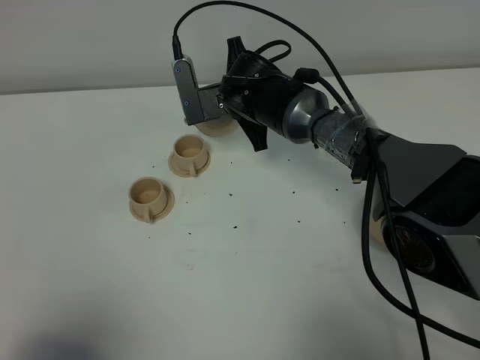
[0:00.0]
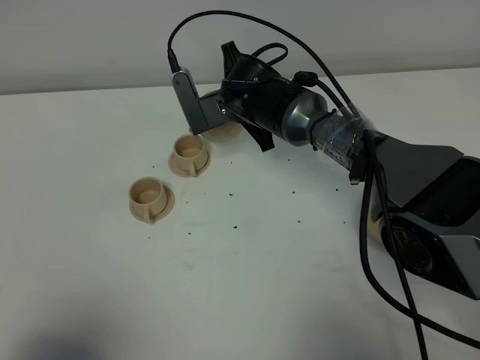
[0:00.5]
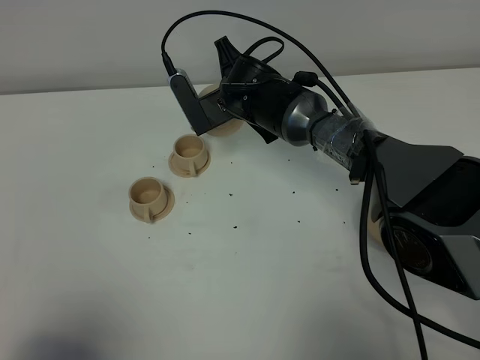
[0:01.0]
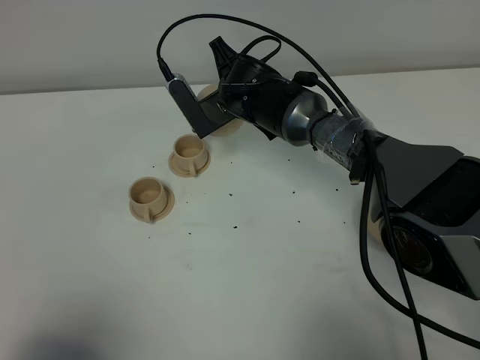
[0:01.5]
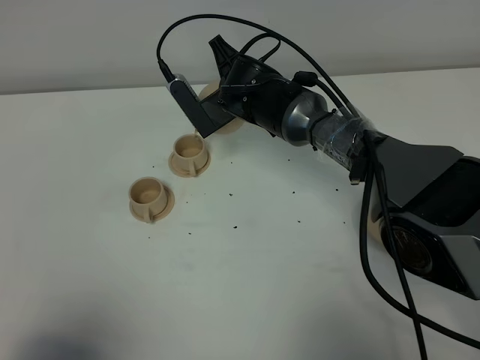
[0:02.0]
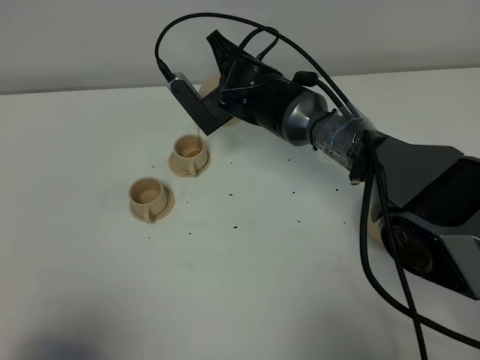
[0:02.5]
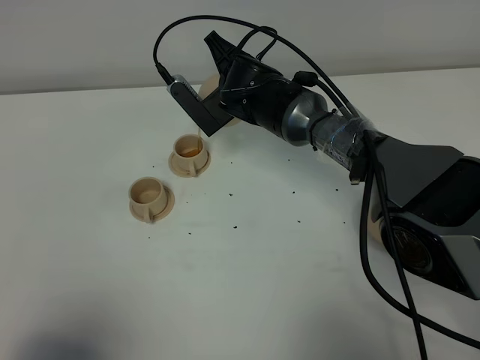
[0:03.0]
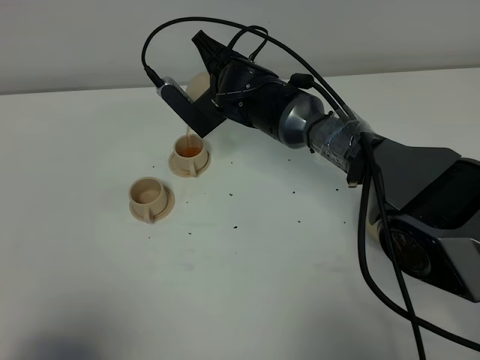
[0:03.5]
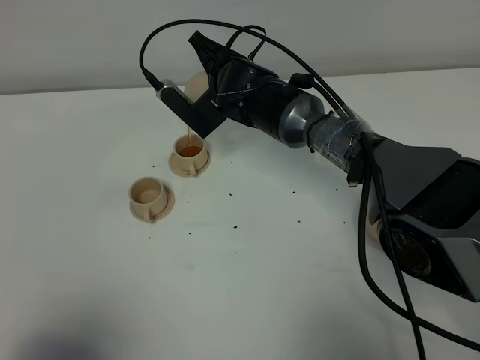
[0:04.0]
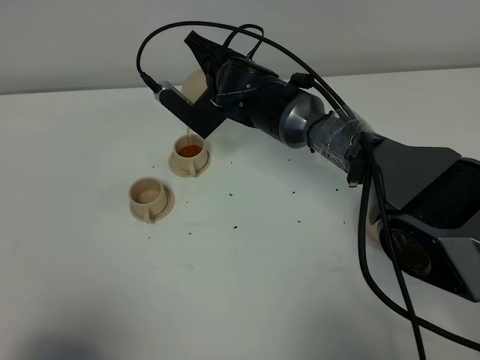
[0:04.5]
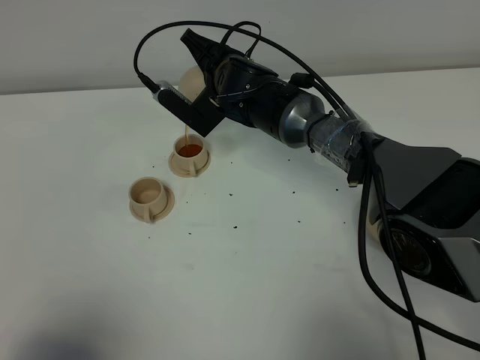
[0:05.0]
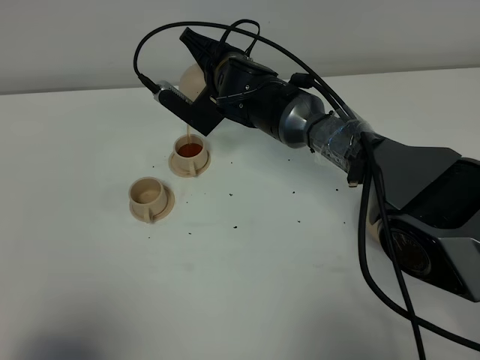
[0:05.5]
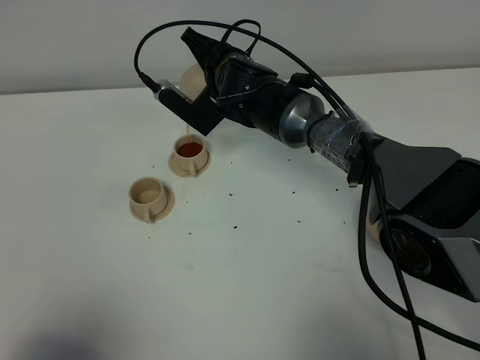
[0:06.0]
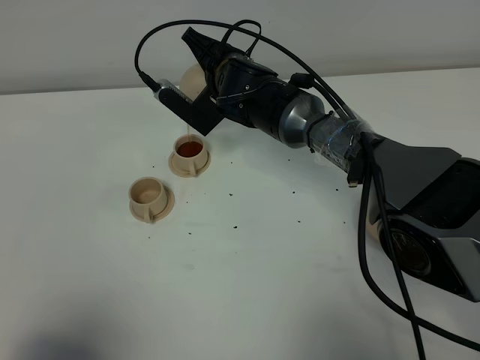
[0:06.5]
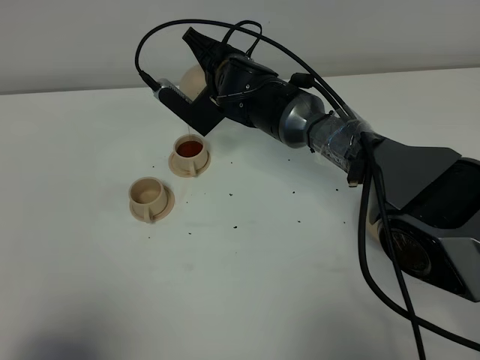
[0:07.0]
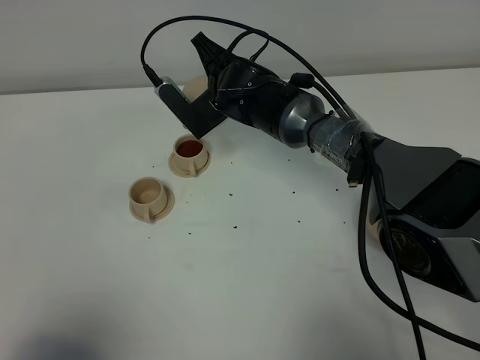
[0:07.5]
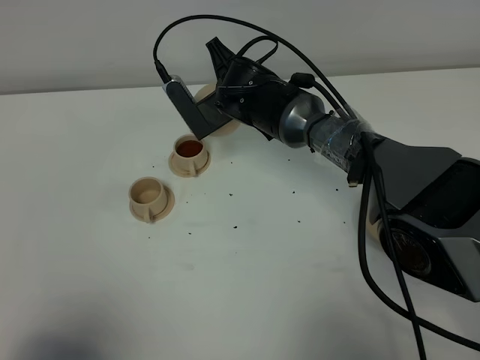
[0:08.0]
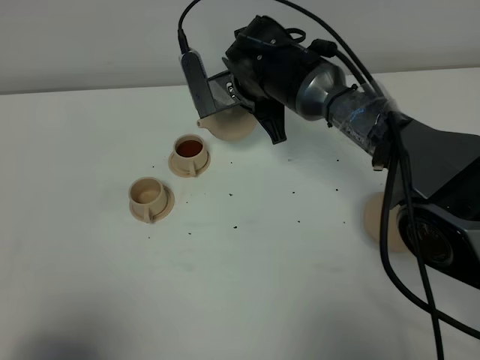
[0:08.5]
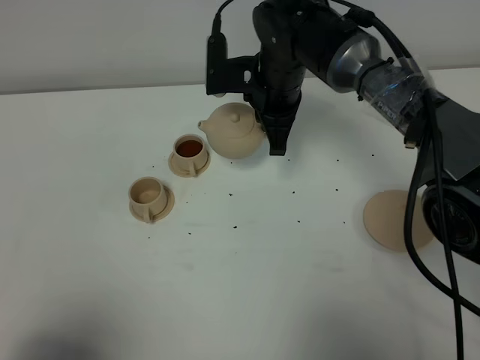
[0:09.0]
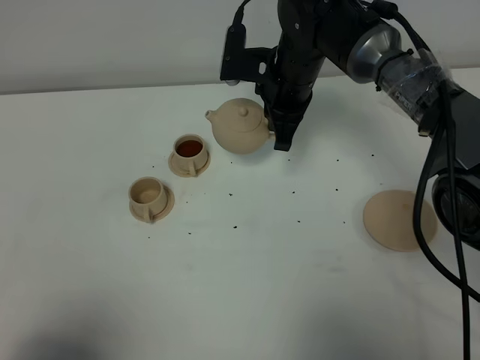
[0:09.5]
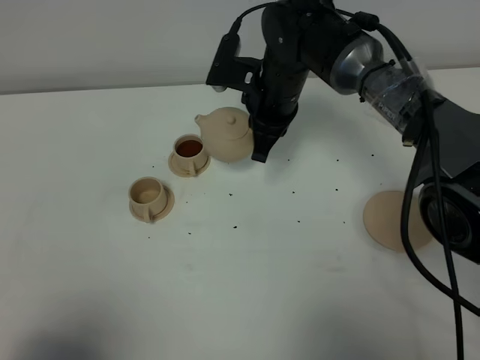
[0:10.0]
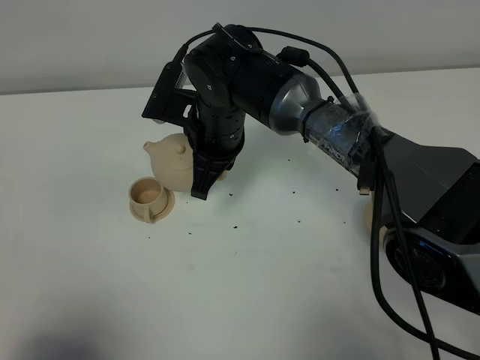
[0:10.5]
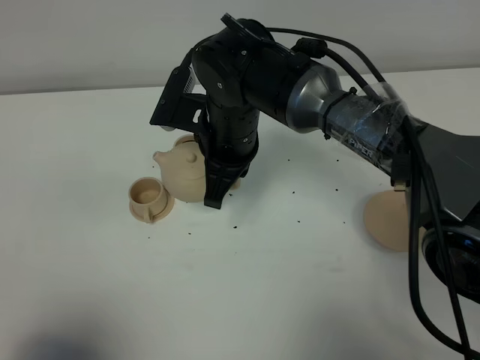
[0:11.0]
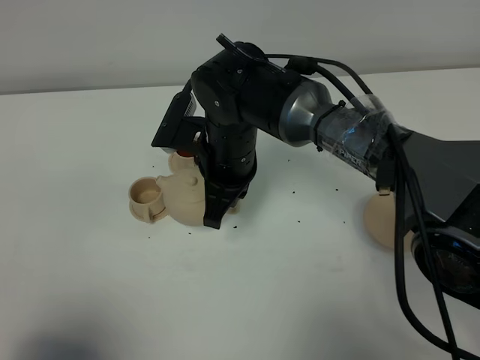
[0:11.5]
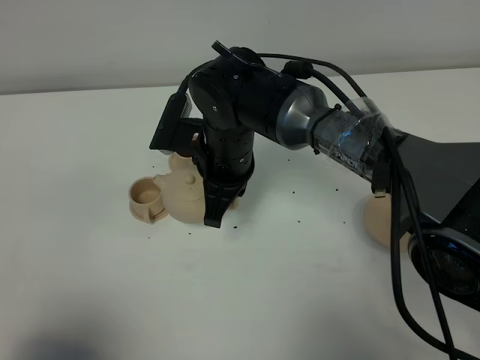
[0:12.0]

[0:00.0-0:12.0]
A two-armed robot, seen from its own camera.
Task of the whole recording: grasp the brown teapot and pour the tea into the two brown teacups one by one, put the brown teapot back in its original place.
Step, 0:00.0 to 0:08.0: Pour tea into the teacup with the right gripper.
0:02.0 to 0:04.0: There are only small adjustments of the grippers.
0:04.0 to 0:06.0: There are only small adjustments of the grippers.
0:08.0 to 0:10.0: The right gripper ends up roughly 5 cm from where it was.
0:10.0 to 0:12.0: The right gripper is displaced backward by some 10 cm.

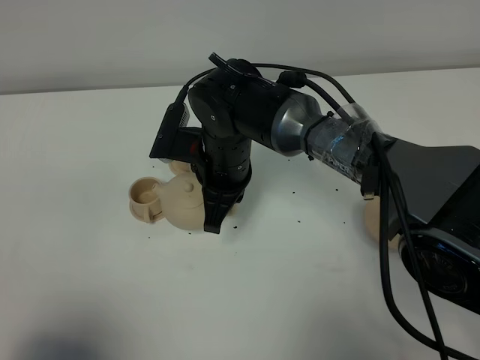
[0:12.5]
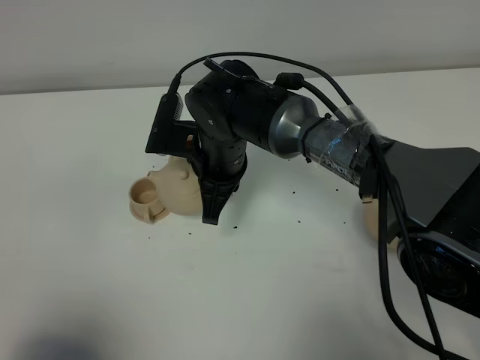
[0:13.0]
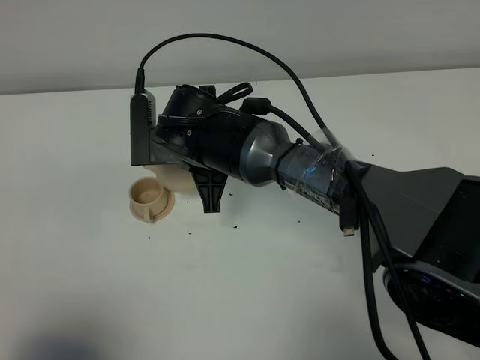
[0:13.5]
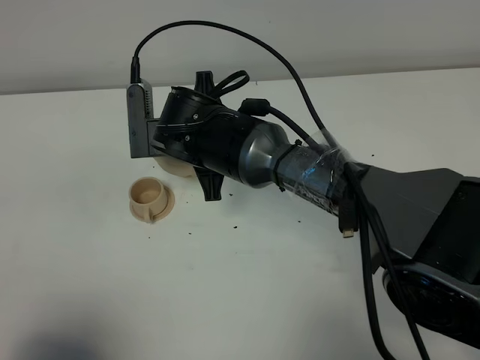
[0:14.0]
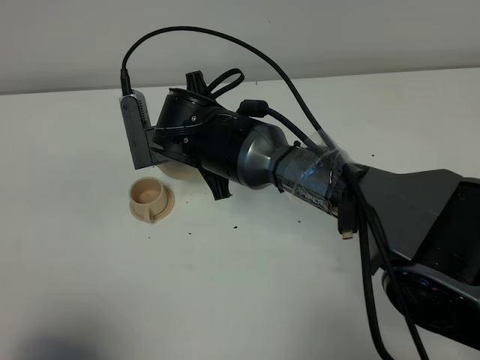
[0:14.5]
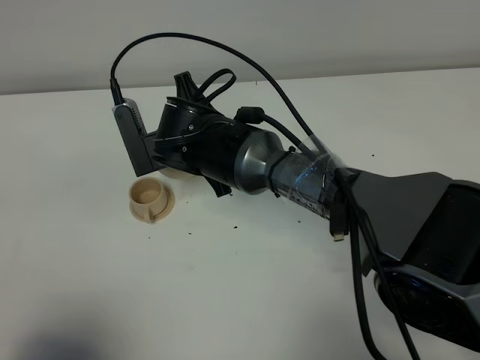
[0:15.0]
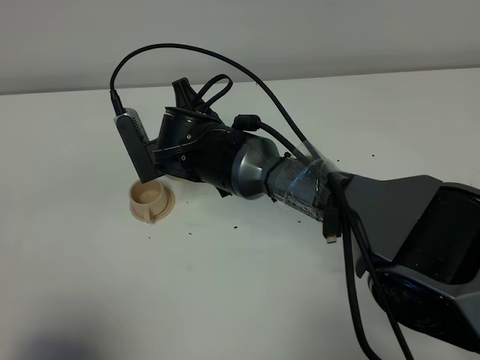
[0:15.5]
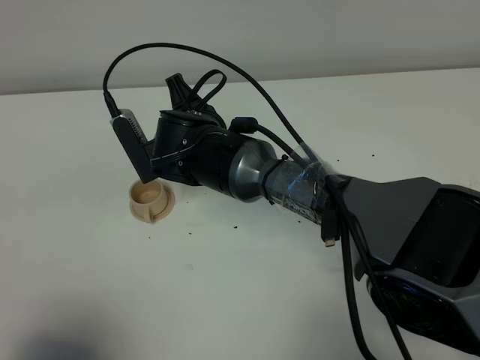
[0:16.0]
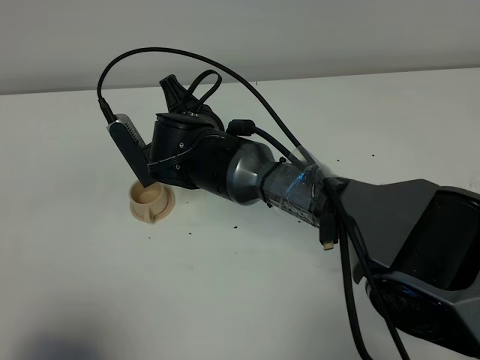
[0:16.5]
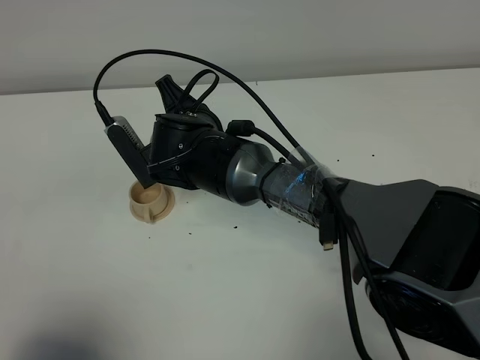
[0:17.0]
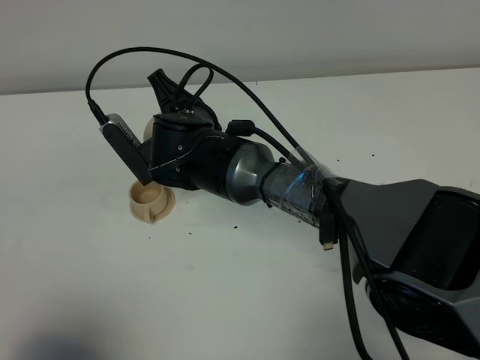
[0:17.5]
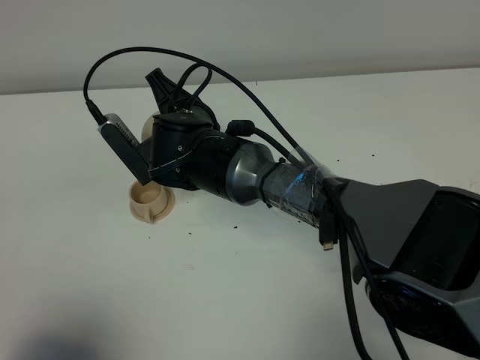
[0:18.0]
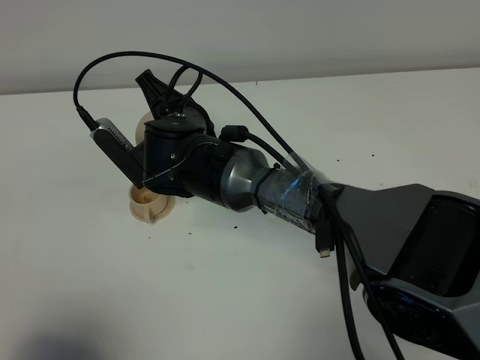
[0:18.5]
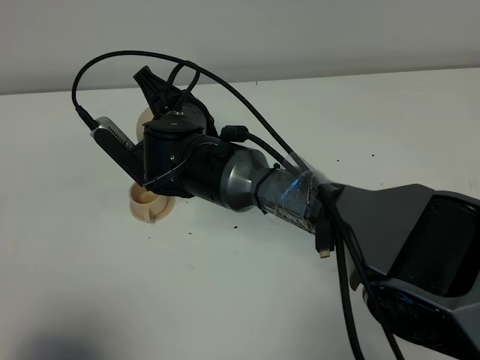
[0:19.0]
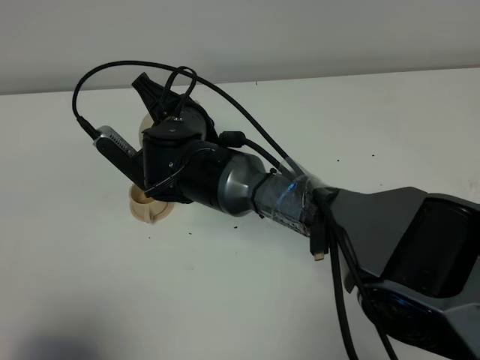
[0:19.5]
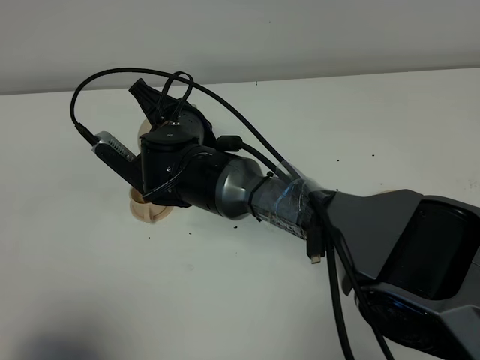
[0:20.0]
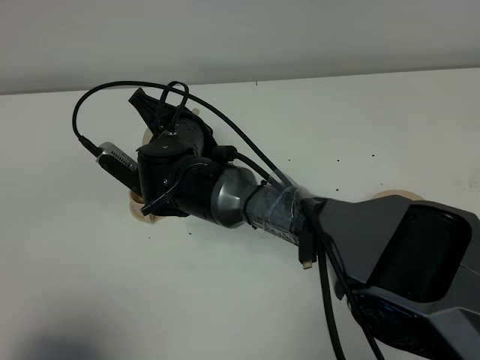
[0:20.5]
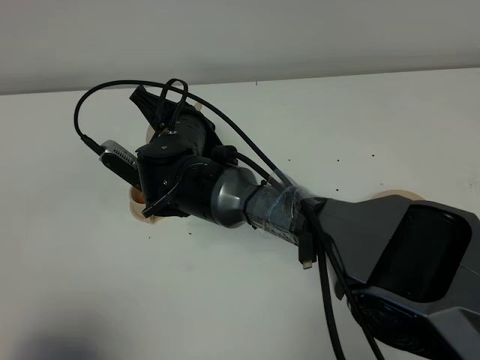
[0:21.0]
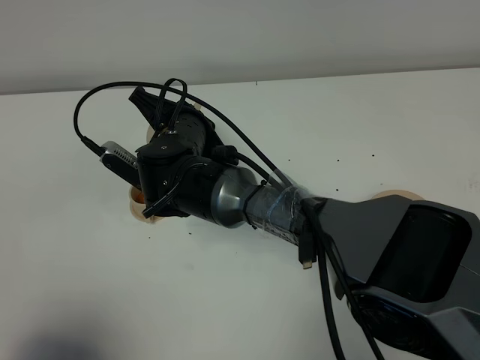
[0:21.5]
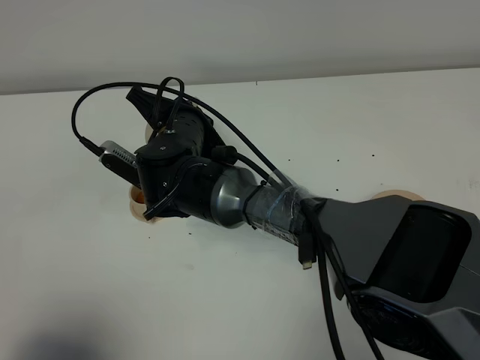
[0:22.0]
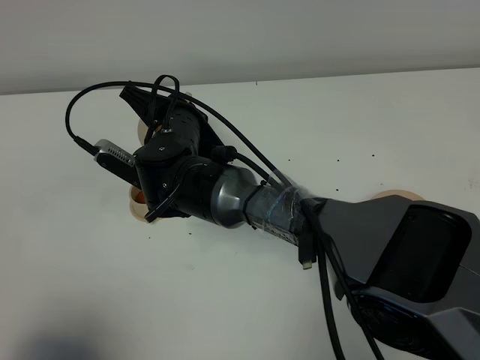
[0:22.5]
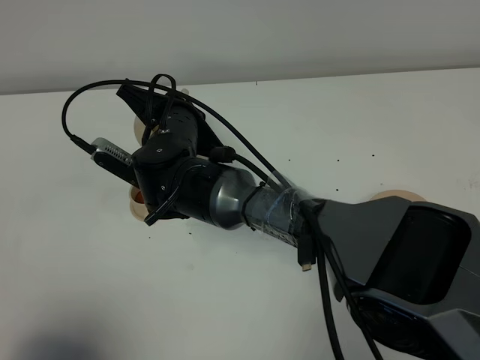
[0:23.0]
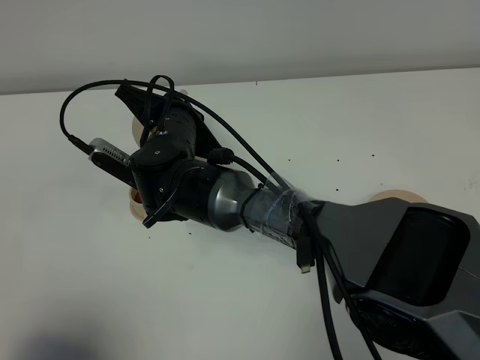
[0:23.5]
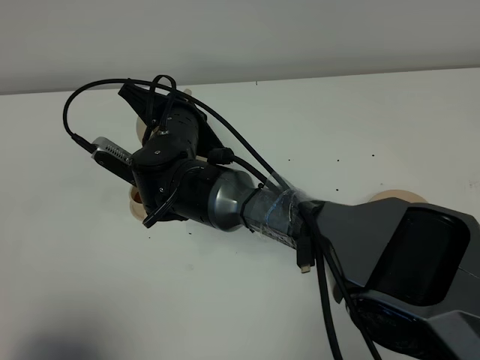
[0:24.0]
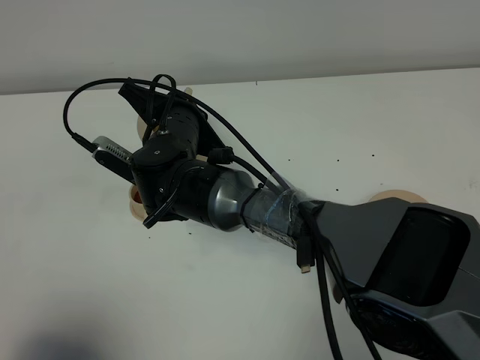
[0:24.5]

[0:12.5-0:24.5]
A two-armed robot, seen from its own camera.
Task of the whole recording: grasp the brown teapot and pour the tea into the two brown teacups one by one, put the brown teapot back in its original place.
0:14.5 to 0:16.5: The grippers stay close to where they were, moving slightly.
0:16.5 to 0:18.5: There are only small adjustments of the grippers.
0:18.5 to 0:22.5: The grippers make only small movements.
0:22.5 to 0:24.5: Both grippers stay put.

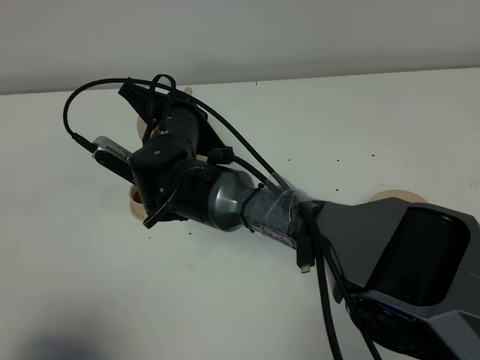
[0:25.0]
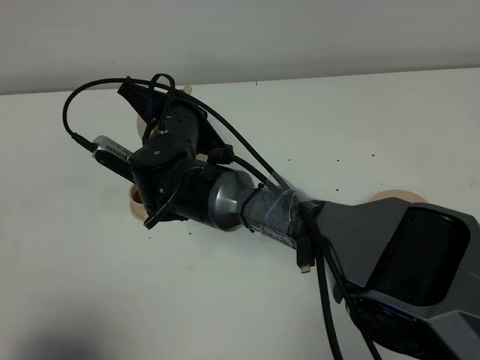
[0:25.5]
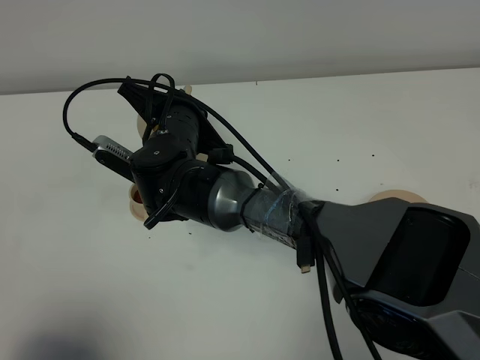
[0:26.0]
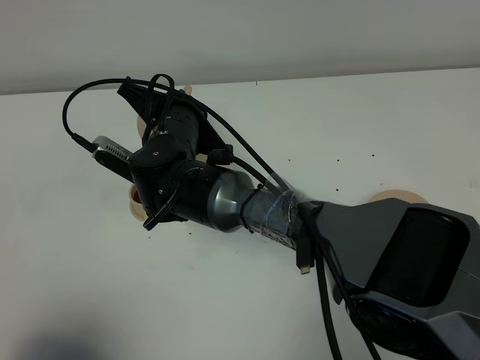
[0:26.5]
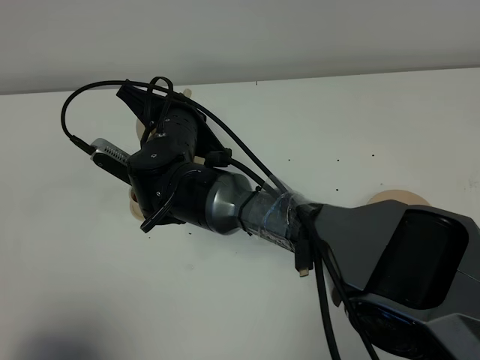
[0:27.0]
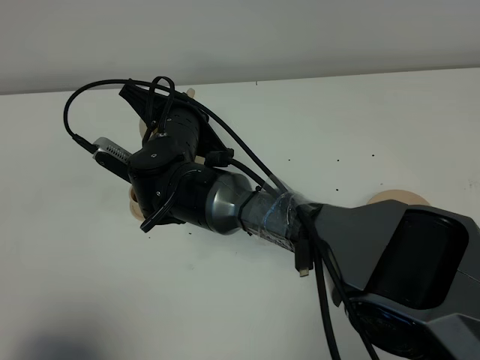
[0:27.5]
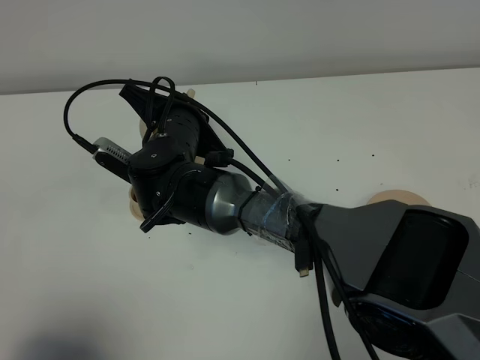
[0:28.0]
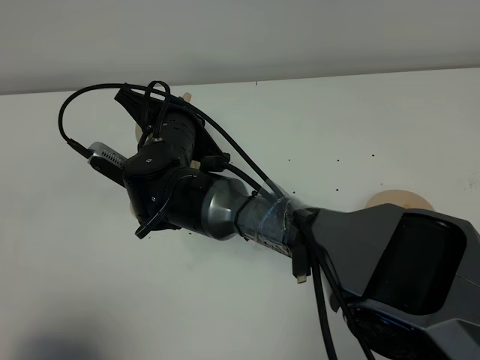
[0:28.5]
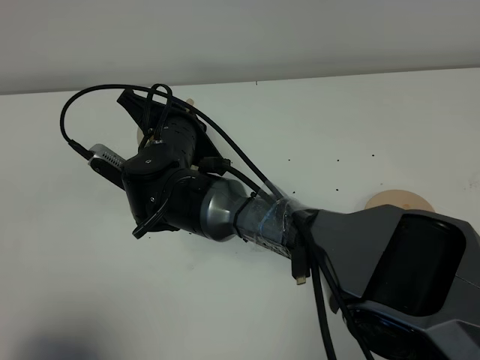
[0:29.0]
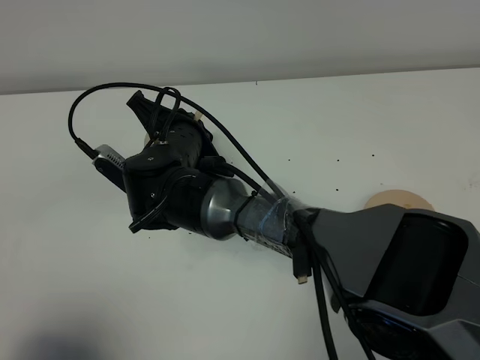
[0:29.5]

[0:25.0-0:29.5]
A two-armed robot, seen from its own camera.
Task of the whole recording: grasp the brown teapot and pour the tea into the two brown teacups one by one, put the brown teapot back in its original place.
0:25.0 to 0:27.0: The two grippers keep their place.
0:27.0 to 0:29.5: The grippers make only small movements.
